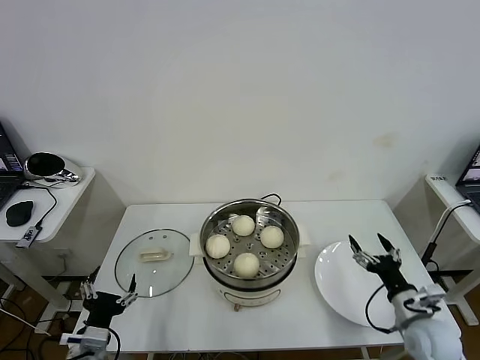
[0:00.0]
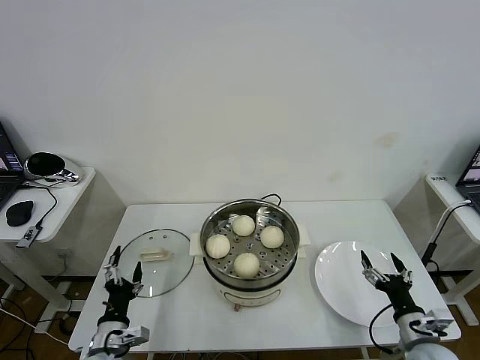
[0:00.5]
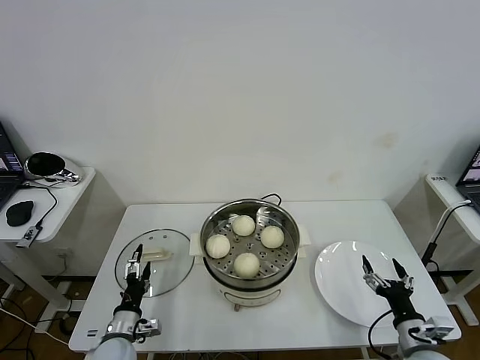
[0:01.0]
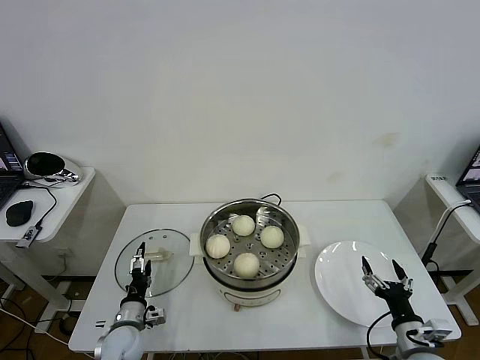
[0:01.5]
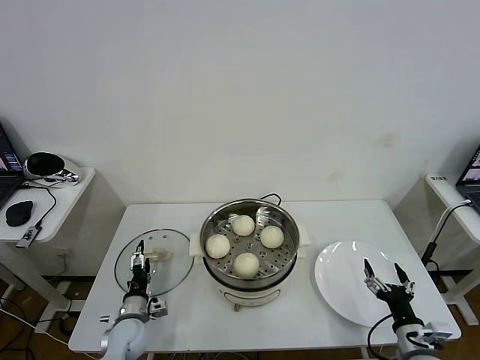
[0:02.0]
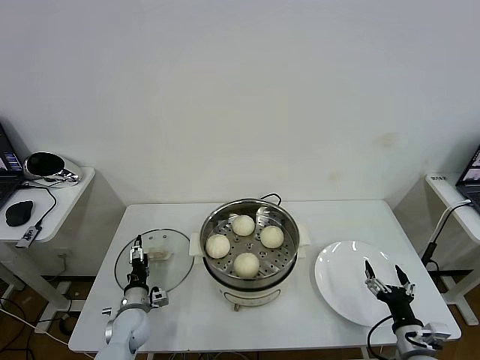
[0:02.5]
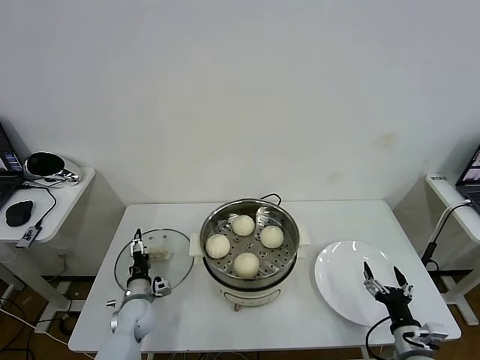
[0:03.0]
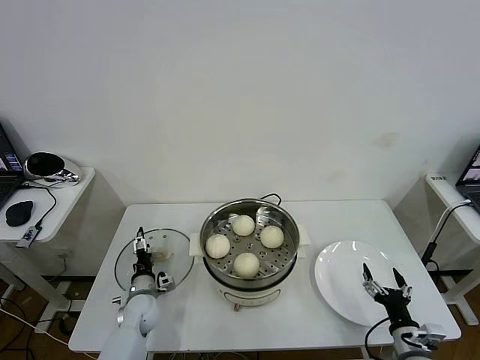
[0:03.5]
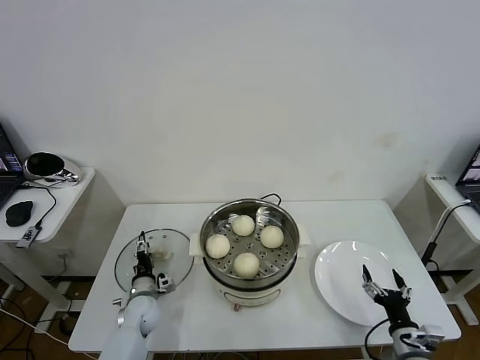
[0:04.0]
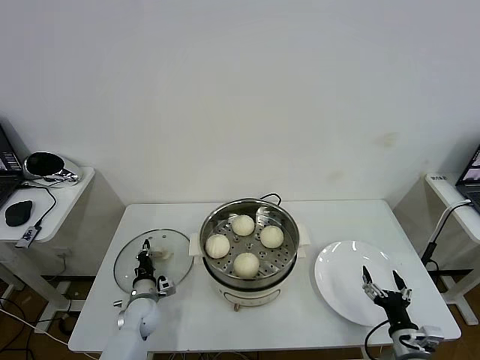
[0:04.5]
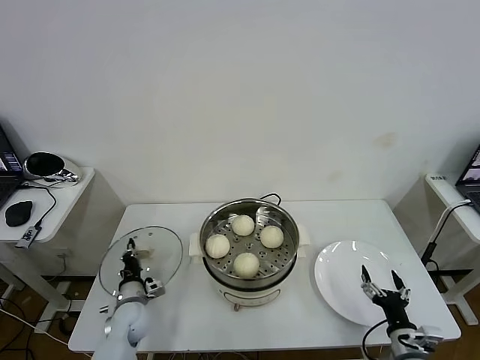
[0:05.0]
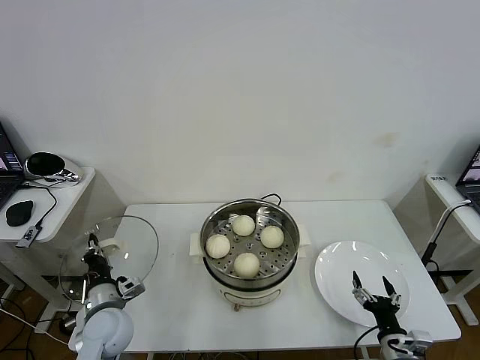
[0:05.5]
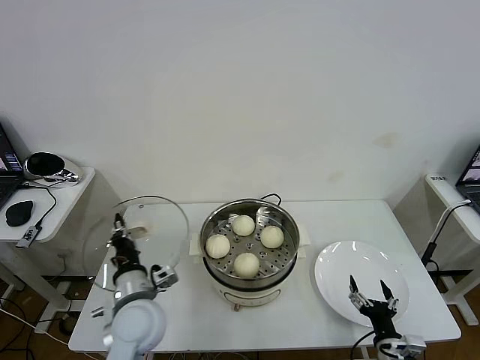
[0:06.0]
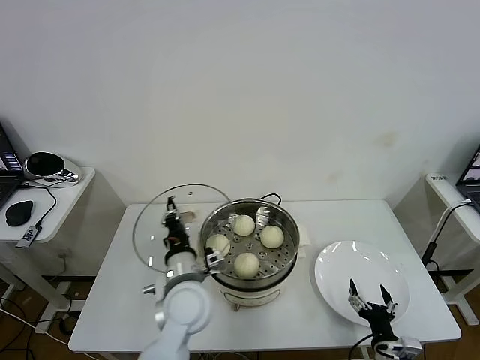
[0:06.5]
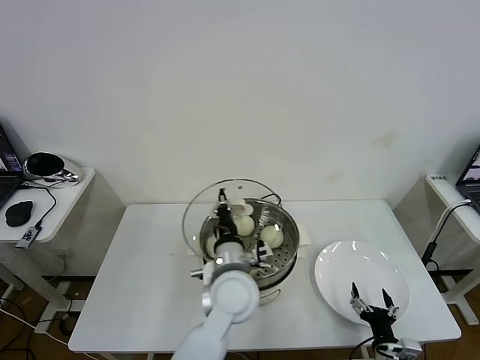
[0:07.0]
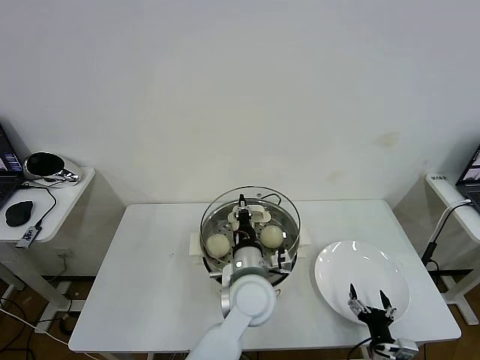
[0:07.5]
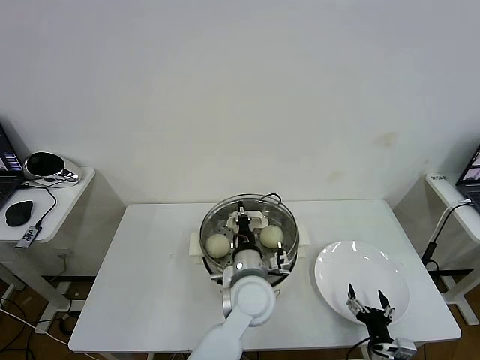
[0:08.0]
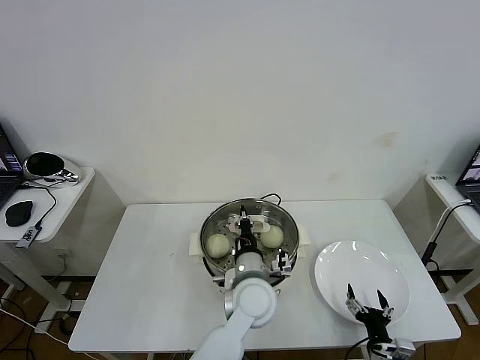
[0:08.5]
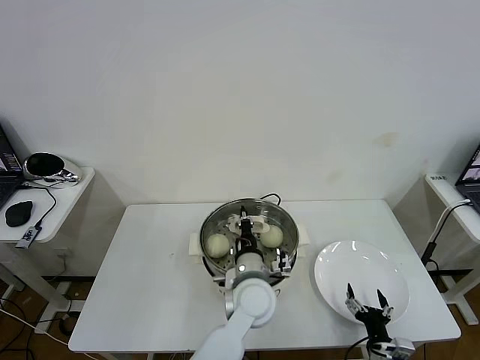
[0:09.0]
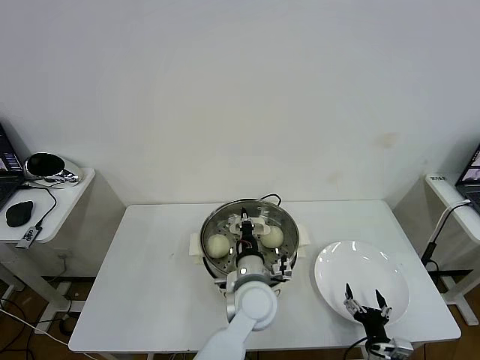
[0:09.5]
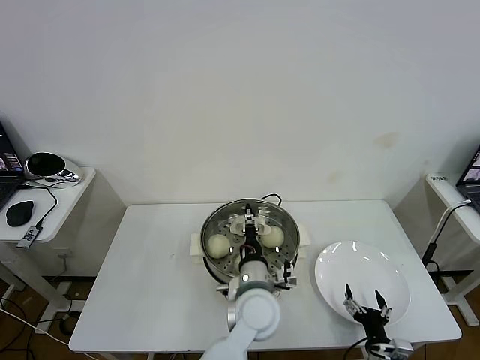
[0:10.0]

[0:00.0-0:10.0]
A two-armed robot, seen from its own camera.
Task of the whole recording: take steamed baozi put them in steamer then cover it.
Step, 0:00.0 to 0:04.5: Grasp the pot lid with left gripper.
0:00.0 to 0:02.0: The right gripper goes approximately 5 cm backward. The left gripper travels downward and forward by roughly 20 cm.
0:02.0 to 0:04.0: The left gripper moves forward, some 5 cm.
0:04.0 to 0:06.0: The left gripper shifts some 20 cm upward and backward, and closes its fingers.
0:06.0 to 0:08.0: The left gripper heads to the right, covering about 20 cm.
0:08.0 to 0:10.0: The left gripper opens up.

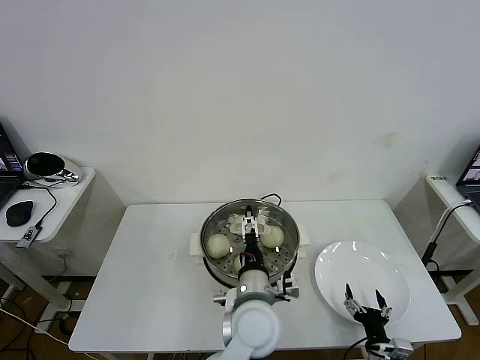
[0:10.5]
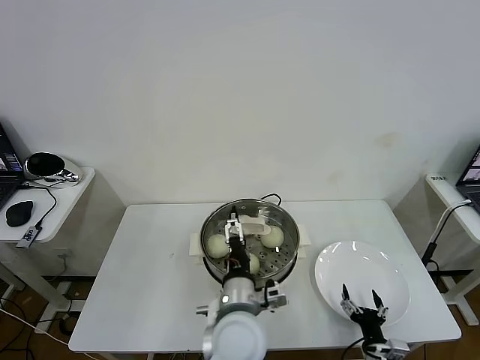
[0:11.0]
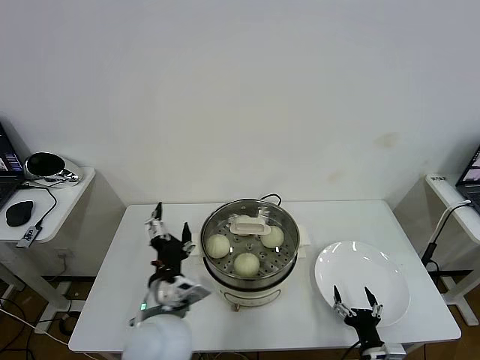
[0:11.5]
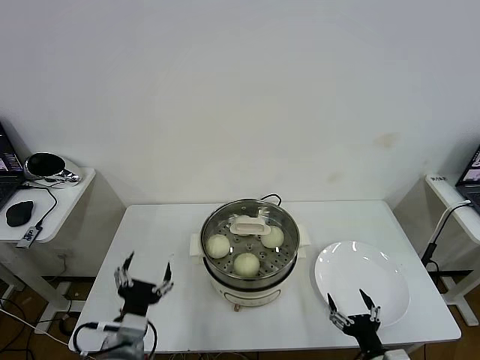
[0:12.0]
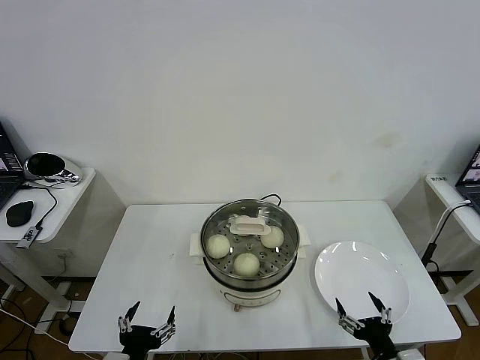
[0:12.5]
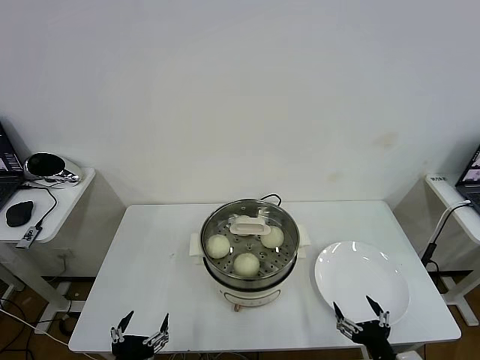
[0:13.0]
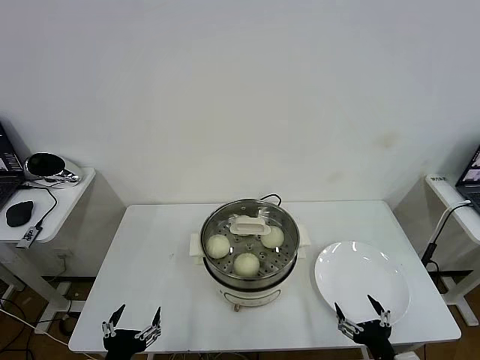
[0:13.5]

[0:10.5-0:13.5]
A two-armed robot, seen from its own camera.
Task of the whole recording: take steamed baozi put them in steamer then cover it.
0:10.5 to 0:12.0: The left gripper shifts roughly 25 cm to the left. Meanwhile the right gripper goes roughly 5 cm upward.
0:12.0 to 0:13.5: The left gripper shifts roughly 10 cm backward.
